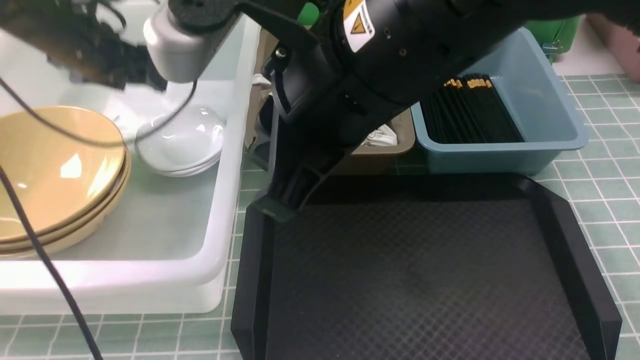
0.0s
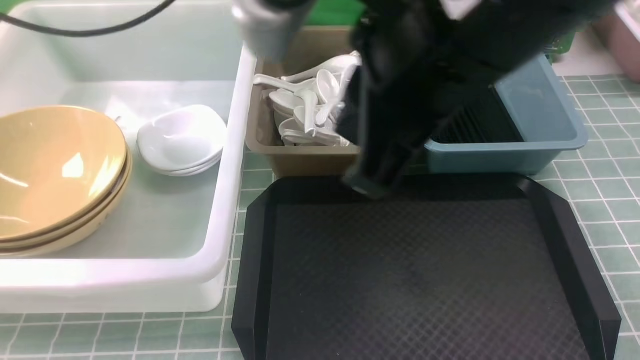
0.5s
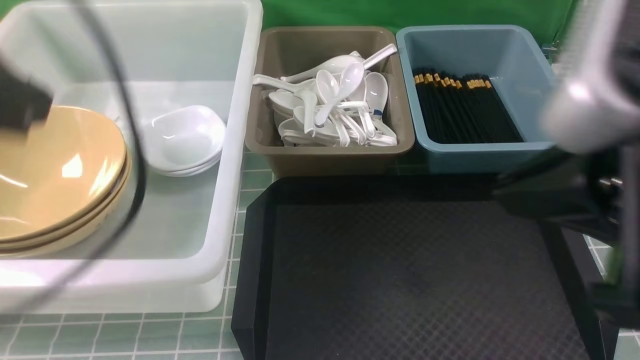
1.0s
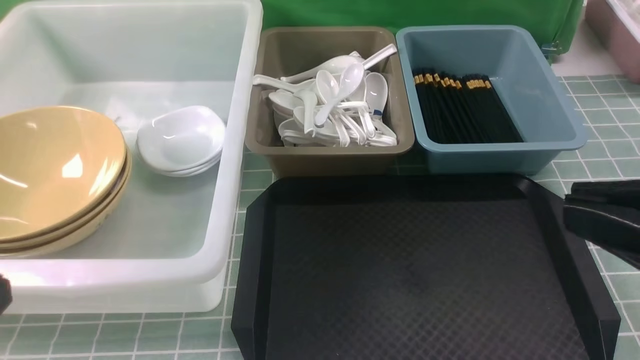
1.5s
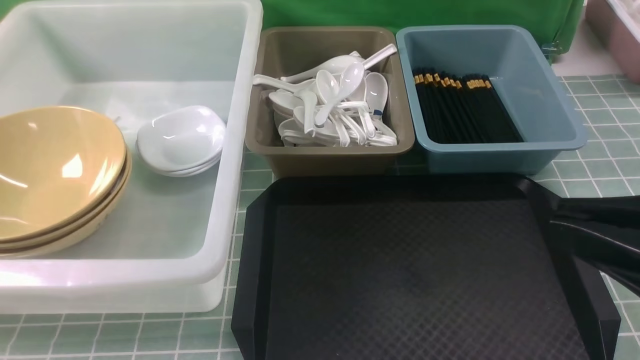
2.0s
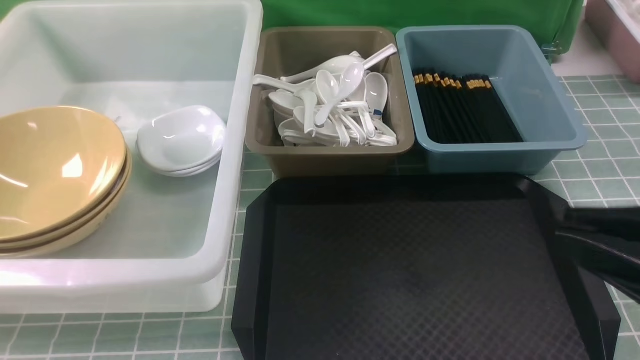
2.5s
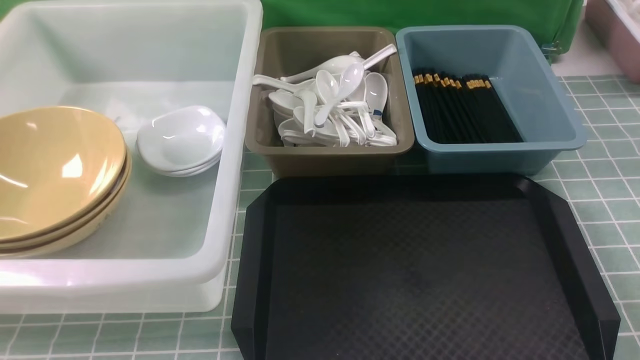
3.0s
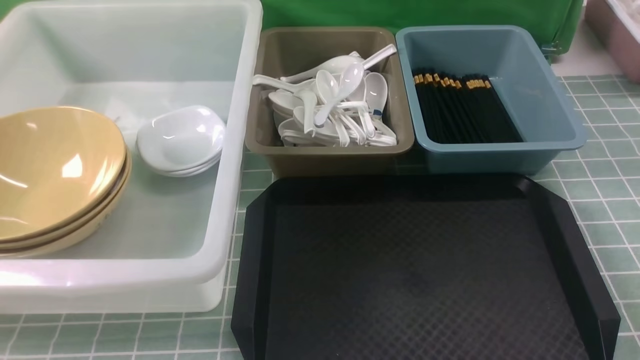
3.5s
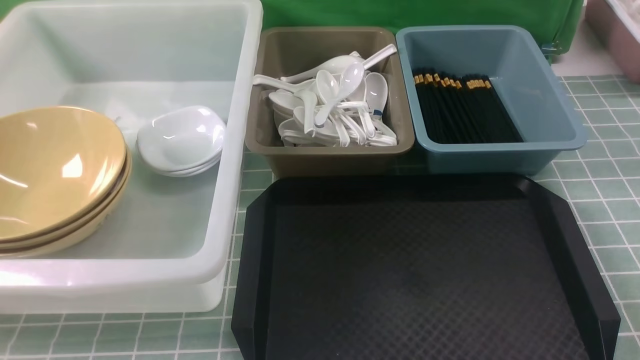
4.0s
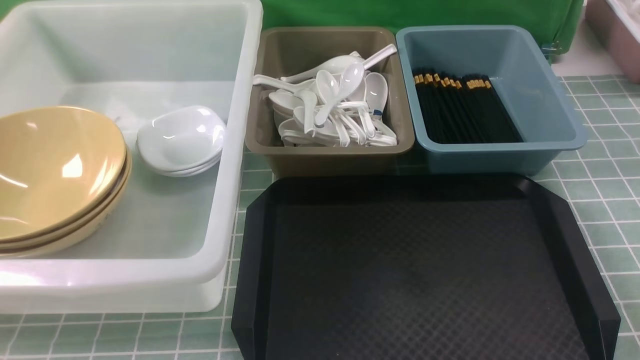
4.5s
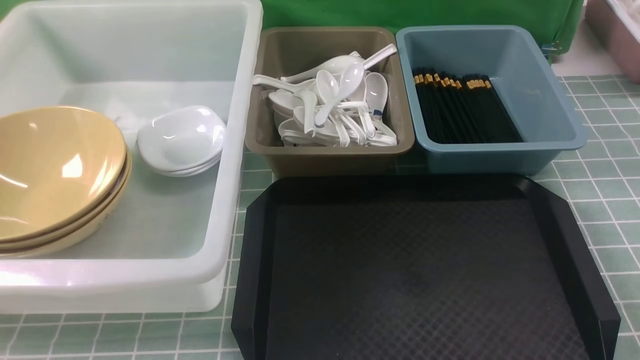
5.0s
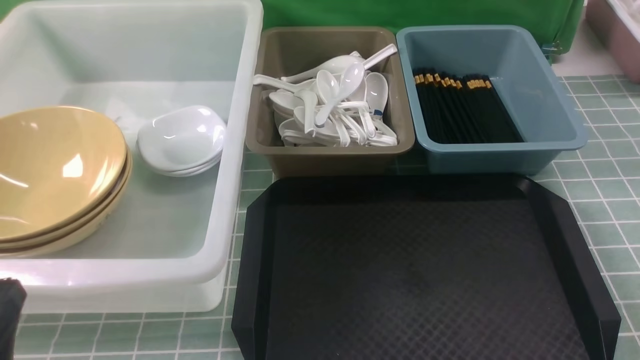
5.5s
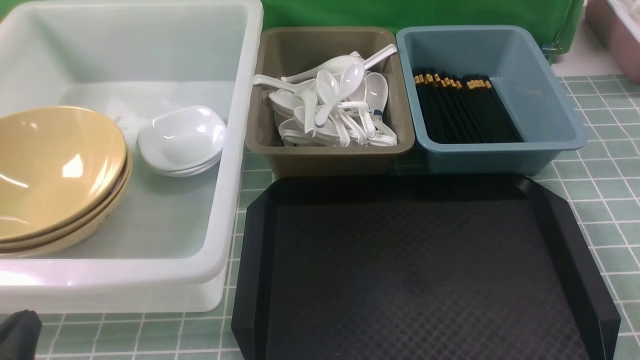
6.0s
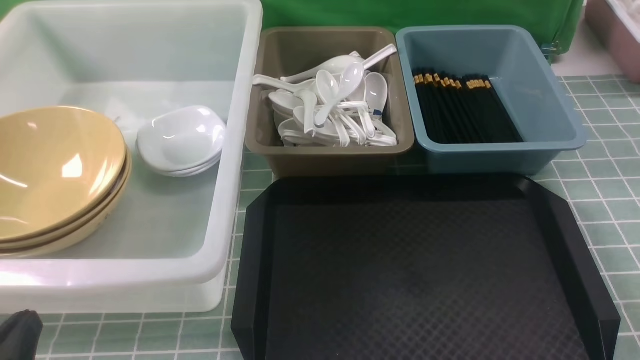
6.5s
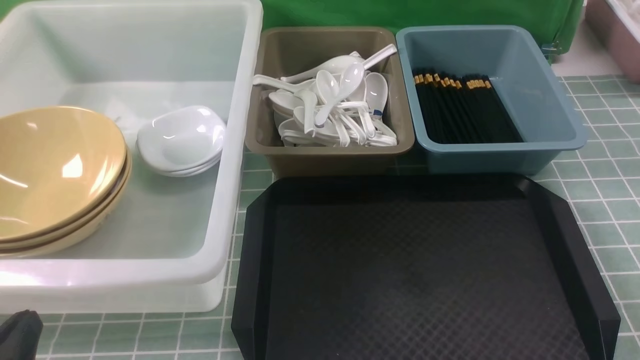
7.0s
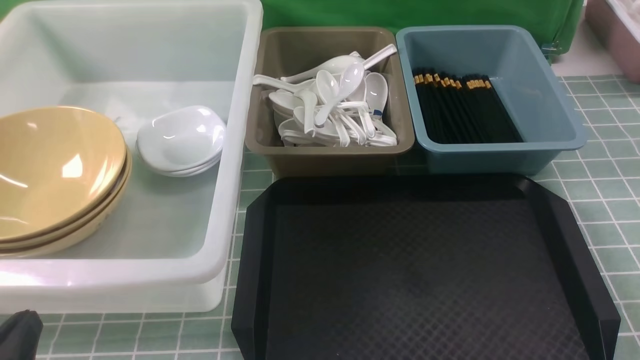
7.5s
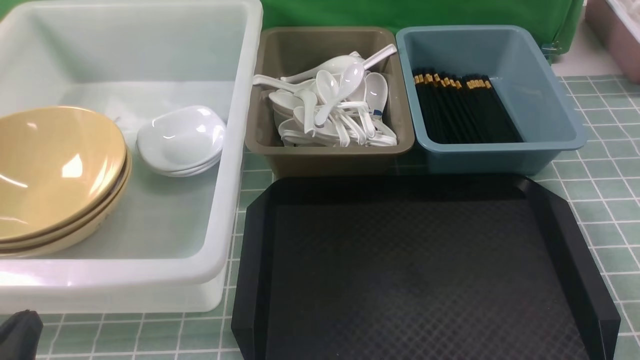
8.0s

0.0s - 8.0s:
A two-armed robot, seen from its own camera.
Task of the whole recording: on blue table put chopsticks spoon bowls plates into blue grey white boxes.
0.0s - 2.0s: The right gripper travels to the right and backward by roughly 25 cm. The left gripper is displaced backward by approximately 40 cm, and closes up.
2.0s - 4.0s: The right gripper travels downward and to the right by some 20 cm.
4.0s - 6.0s: The left gripper moves downward, approximately 10 cm.
6.0s - 8.0s: Both grippers stay put.
